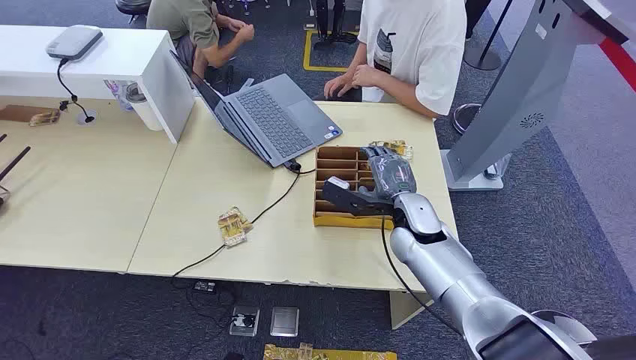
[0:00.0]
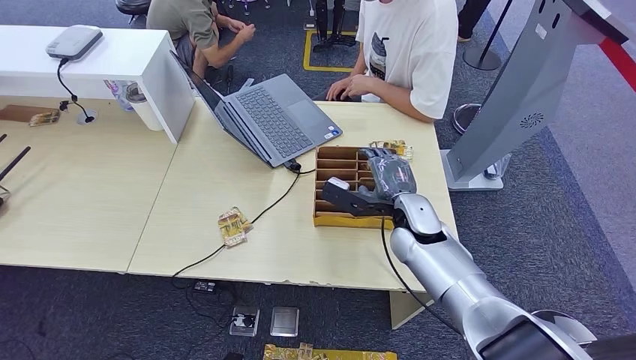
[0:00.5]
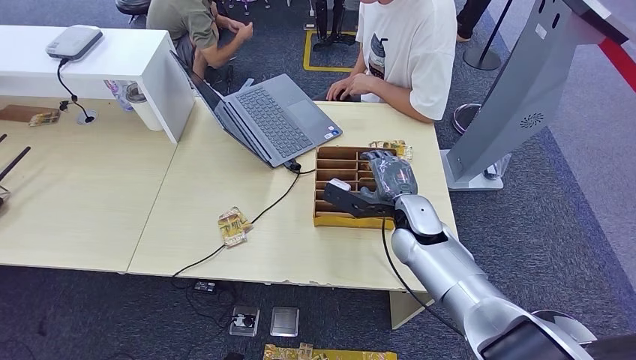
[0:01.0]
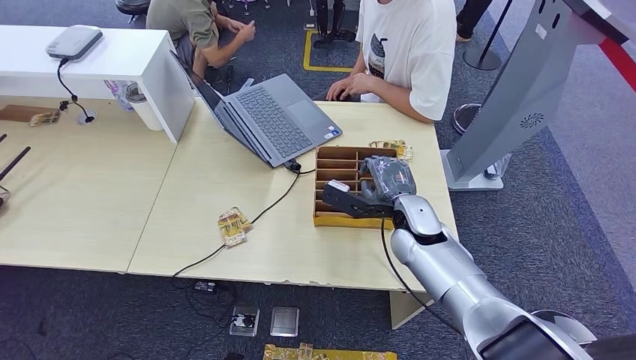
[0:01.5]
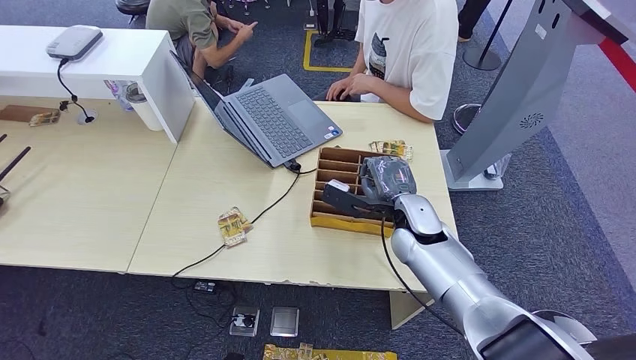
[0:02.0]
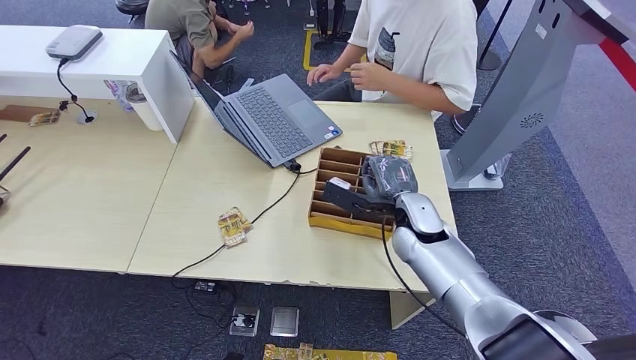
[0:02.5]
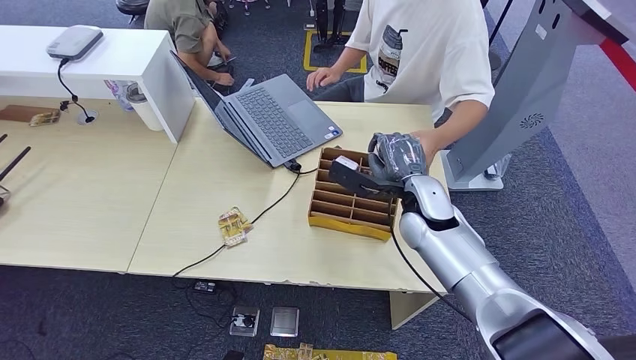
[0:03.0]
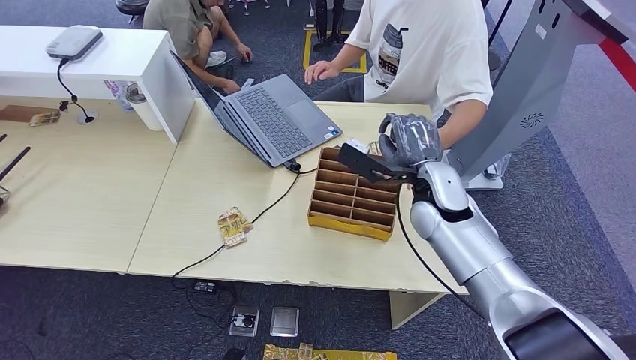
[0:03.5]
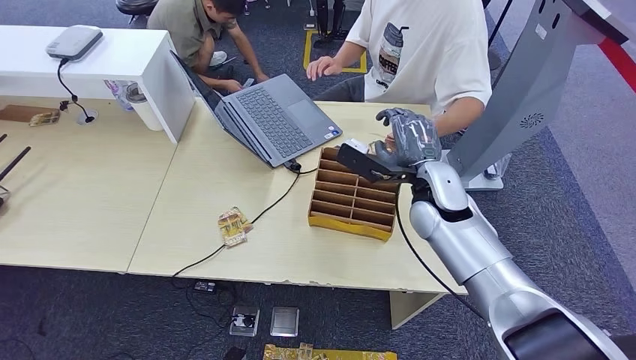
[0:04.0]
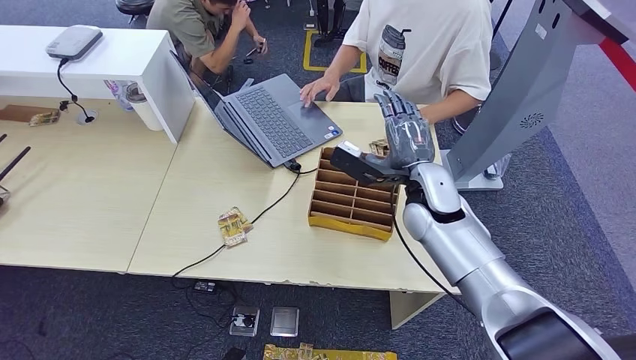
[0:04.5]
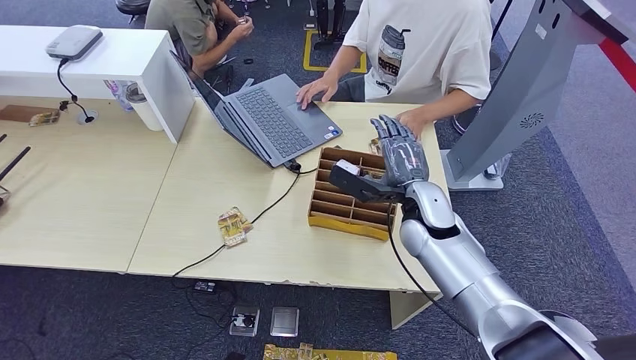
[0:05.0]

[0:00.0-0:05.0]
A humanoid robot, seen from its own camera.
Step, 0:00.0 to 0:03.0: Pick up the room card from the card holder.
Step, 0:03.5 to 0:05.0: Hand the room card to the target.

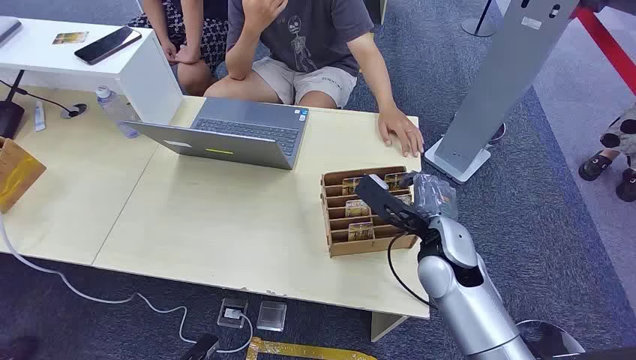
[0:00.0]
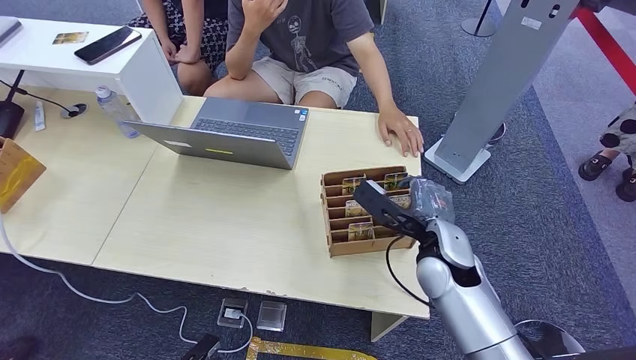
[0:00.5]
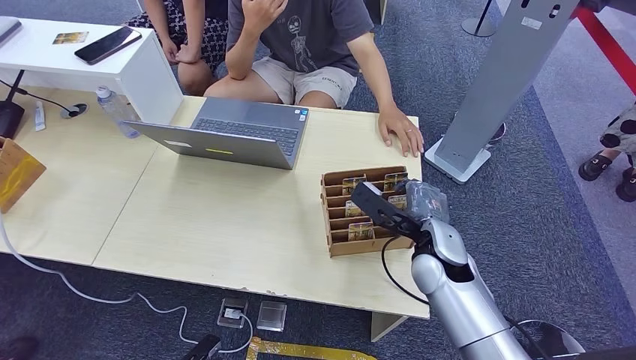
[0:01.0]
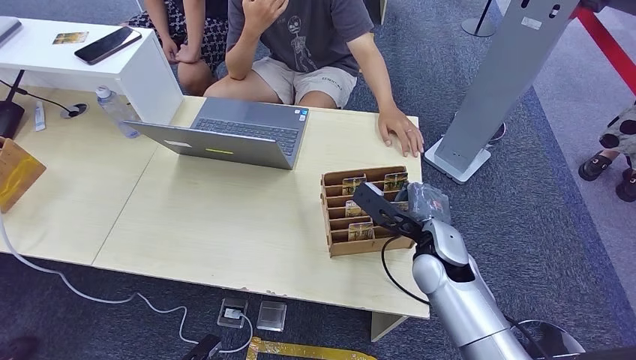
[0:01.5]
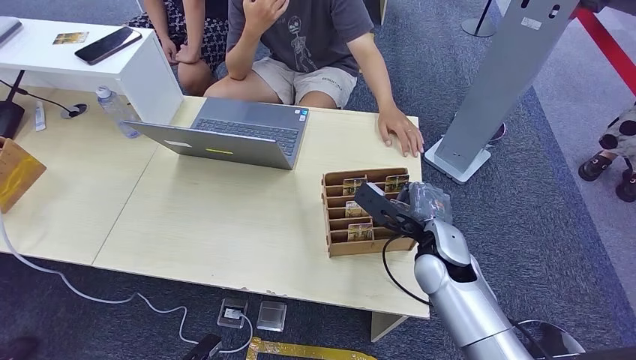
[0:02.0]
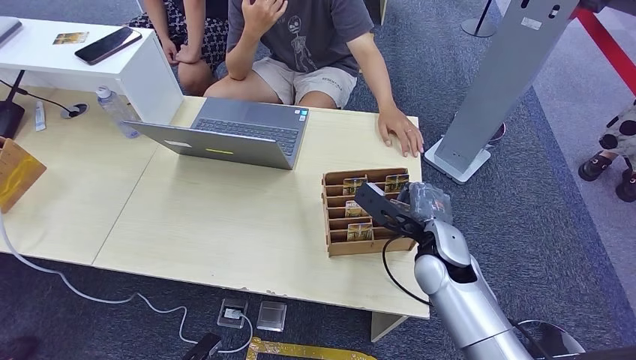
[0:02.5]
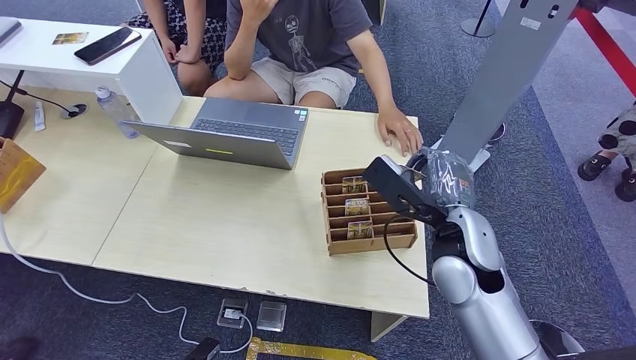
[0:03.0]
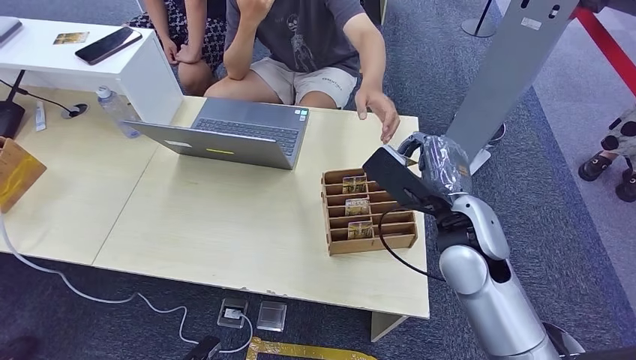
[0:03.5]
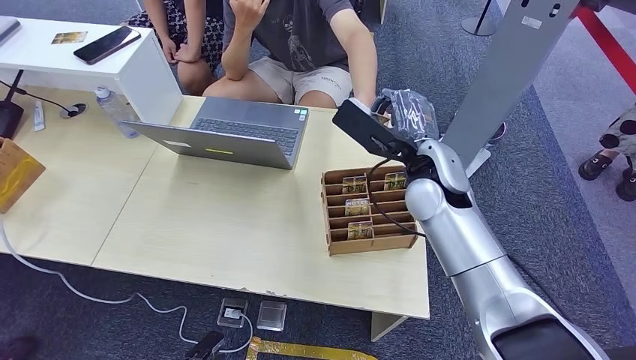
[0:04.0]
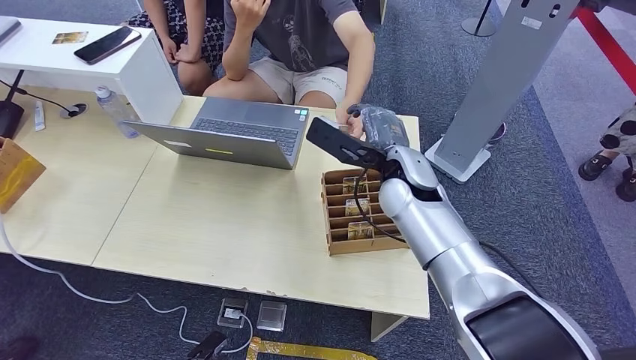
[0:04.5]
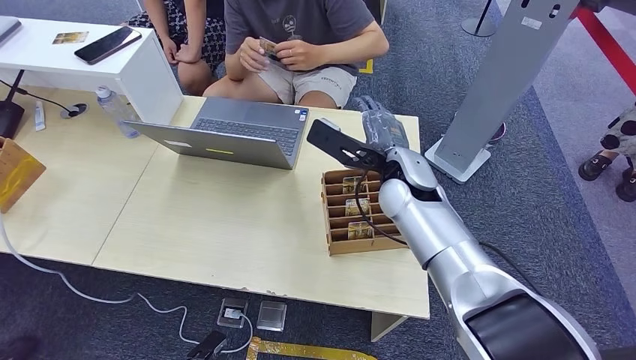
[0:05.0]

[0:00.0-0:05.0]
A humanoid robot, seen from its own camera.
Step, 0:00.0 to 0:03.0: Pick up the room card from the card holder.
Step, 0:04.0 to 0:05.0: Hand the room card to the target.
0:02.5 to 0:05.0: The right hand is displaced upward, forward and to the left by some 15 cm.
